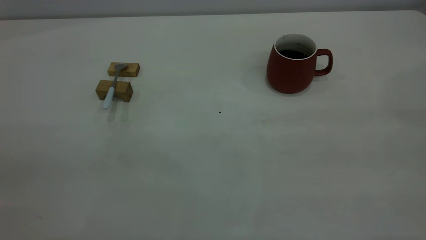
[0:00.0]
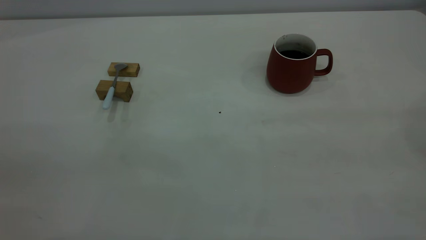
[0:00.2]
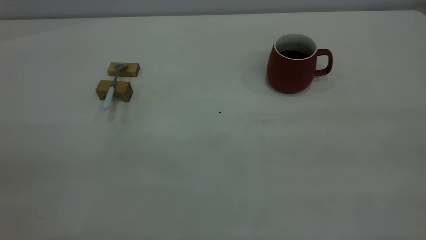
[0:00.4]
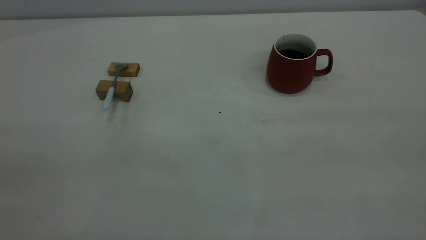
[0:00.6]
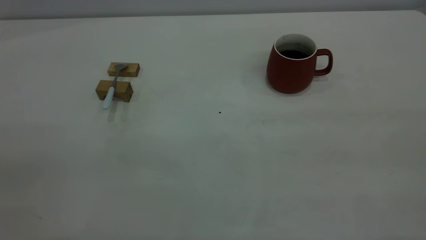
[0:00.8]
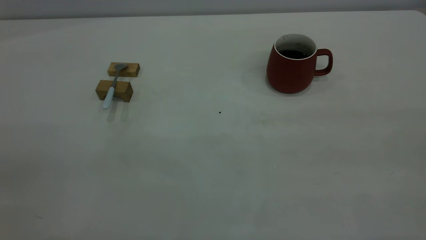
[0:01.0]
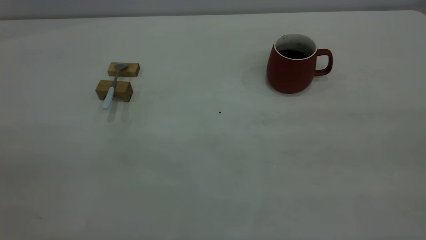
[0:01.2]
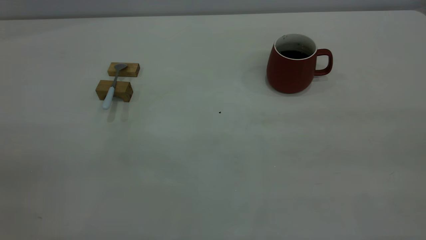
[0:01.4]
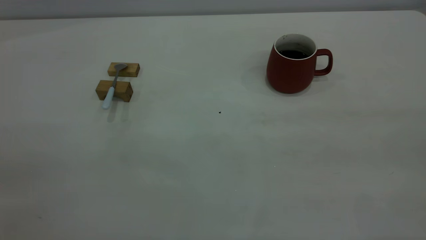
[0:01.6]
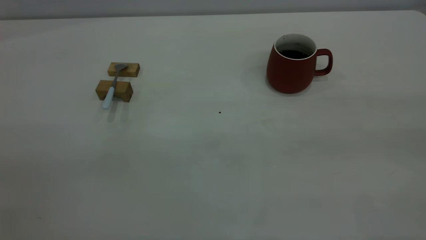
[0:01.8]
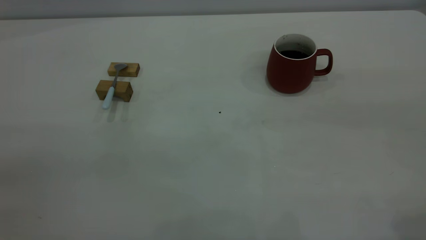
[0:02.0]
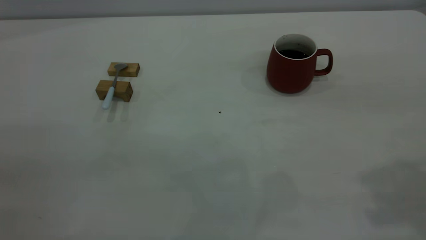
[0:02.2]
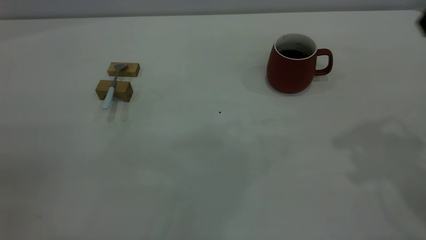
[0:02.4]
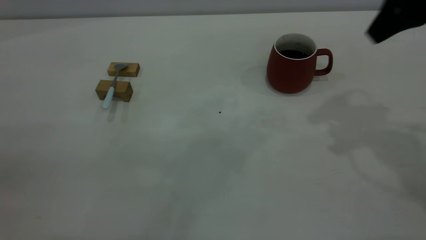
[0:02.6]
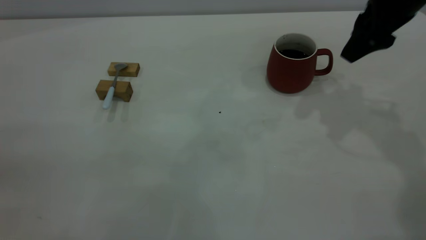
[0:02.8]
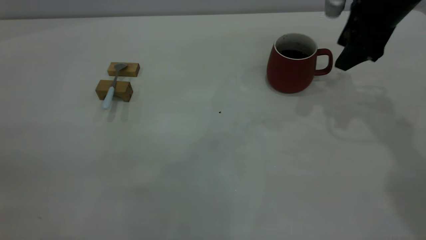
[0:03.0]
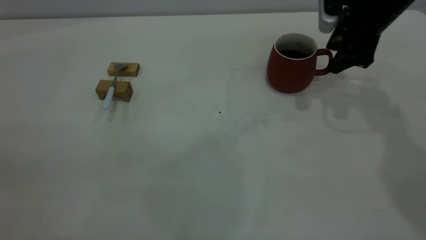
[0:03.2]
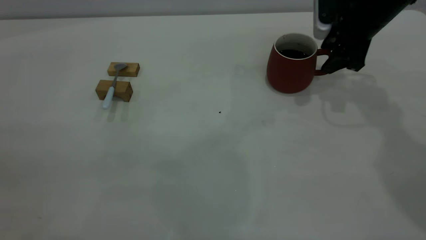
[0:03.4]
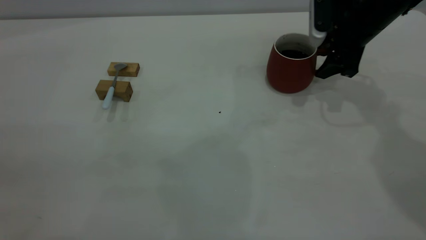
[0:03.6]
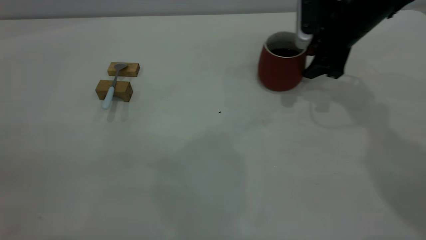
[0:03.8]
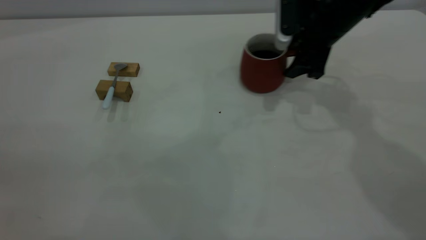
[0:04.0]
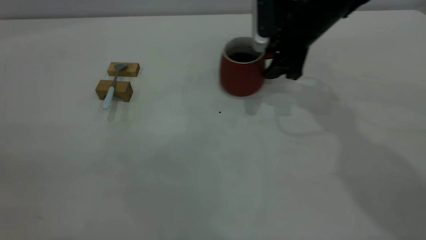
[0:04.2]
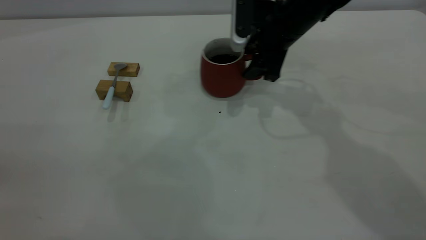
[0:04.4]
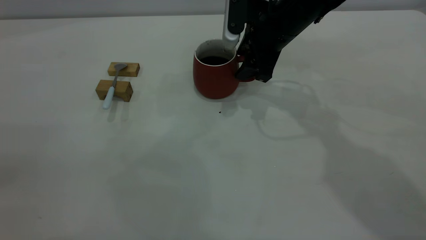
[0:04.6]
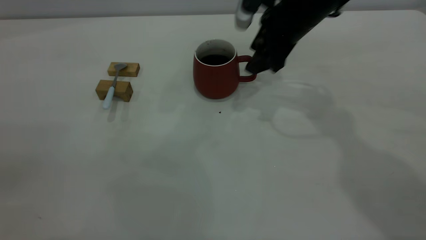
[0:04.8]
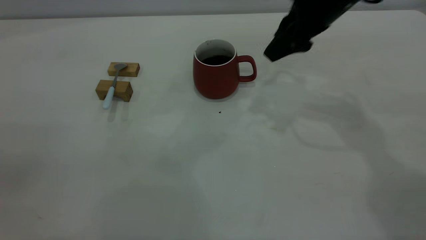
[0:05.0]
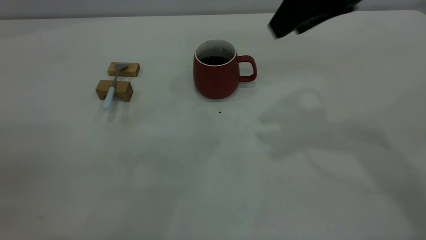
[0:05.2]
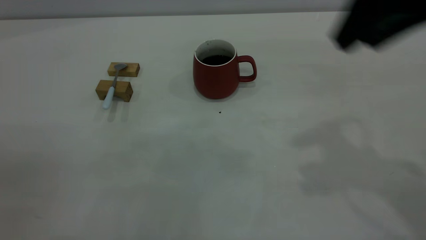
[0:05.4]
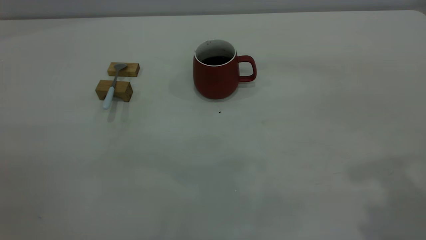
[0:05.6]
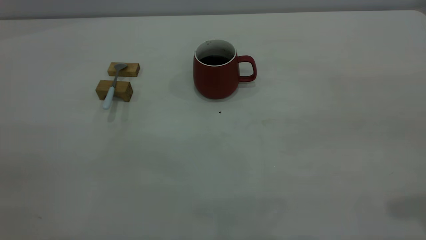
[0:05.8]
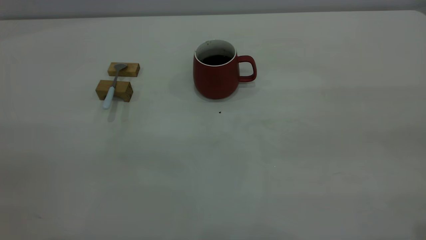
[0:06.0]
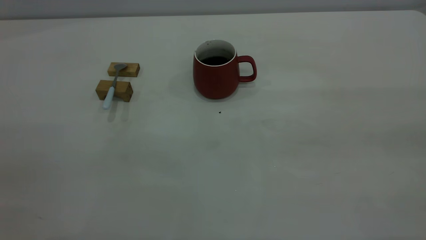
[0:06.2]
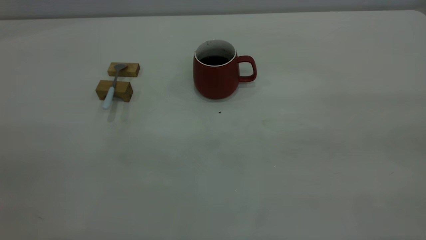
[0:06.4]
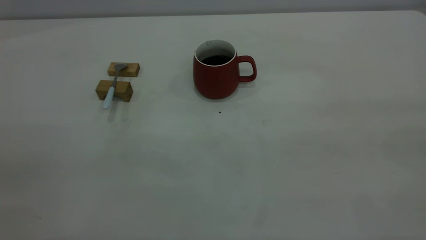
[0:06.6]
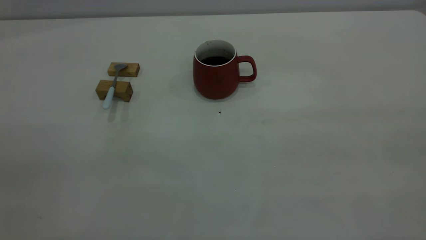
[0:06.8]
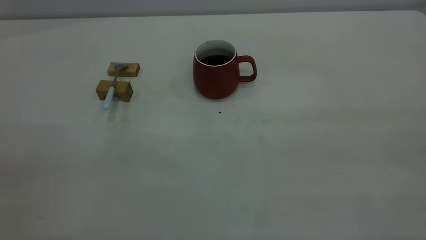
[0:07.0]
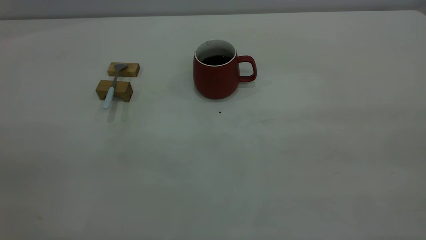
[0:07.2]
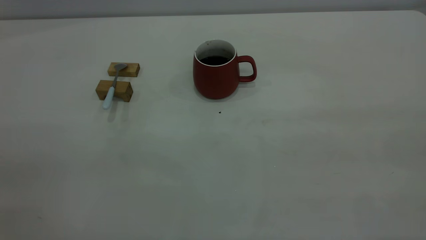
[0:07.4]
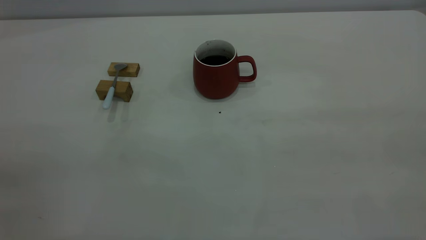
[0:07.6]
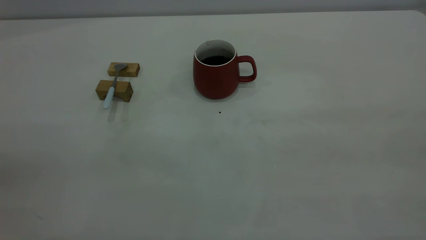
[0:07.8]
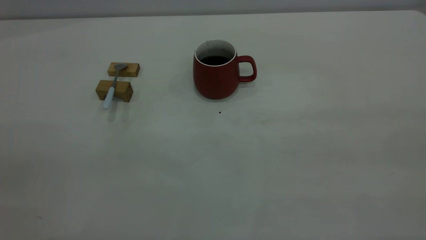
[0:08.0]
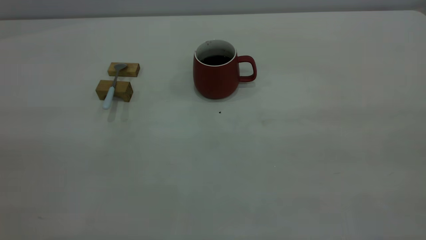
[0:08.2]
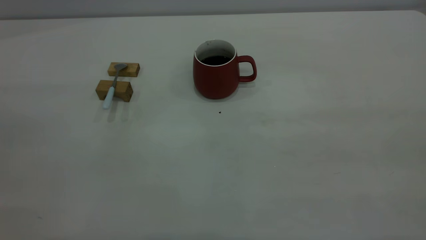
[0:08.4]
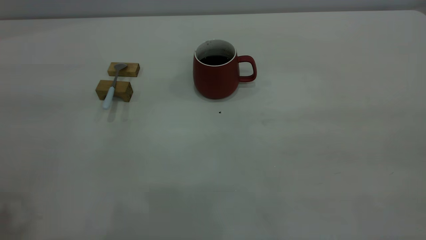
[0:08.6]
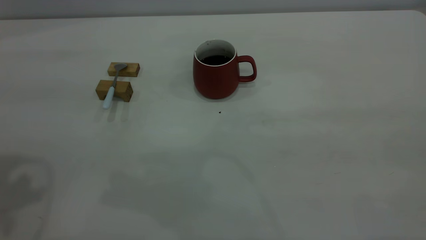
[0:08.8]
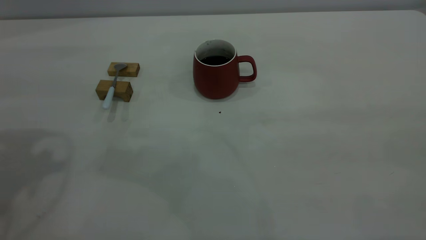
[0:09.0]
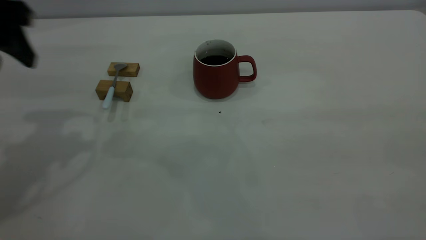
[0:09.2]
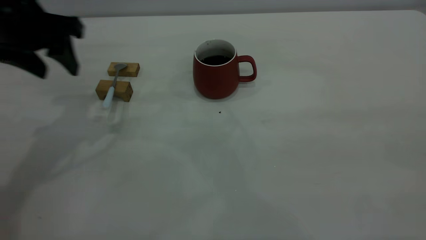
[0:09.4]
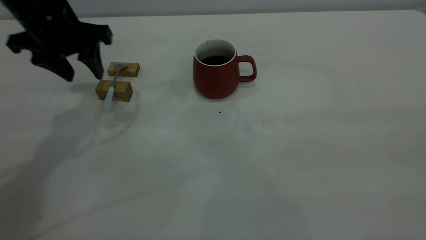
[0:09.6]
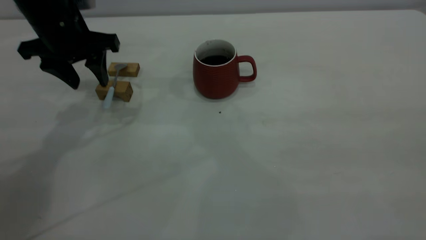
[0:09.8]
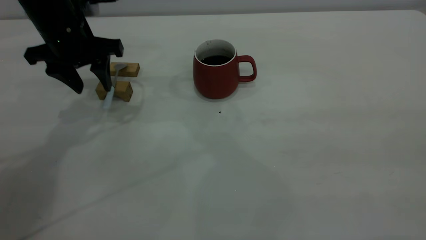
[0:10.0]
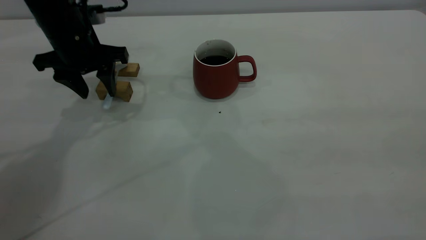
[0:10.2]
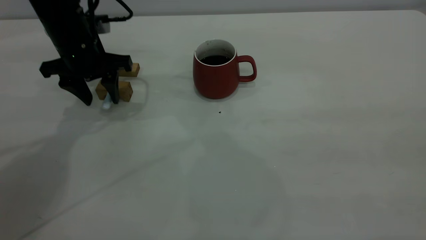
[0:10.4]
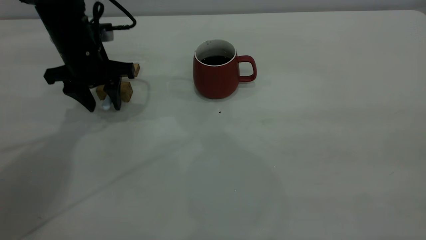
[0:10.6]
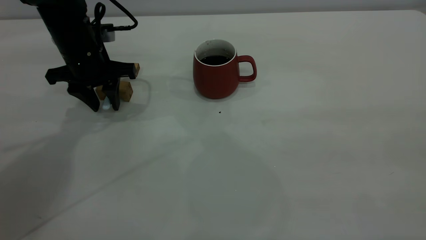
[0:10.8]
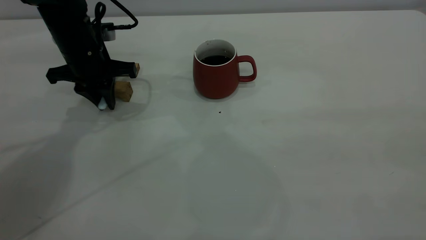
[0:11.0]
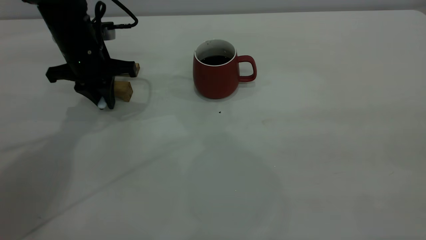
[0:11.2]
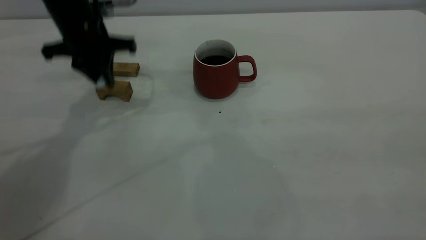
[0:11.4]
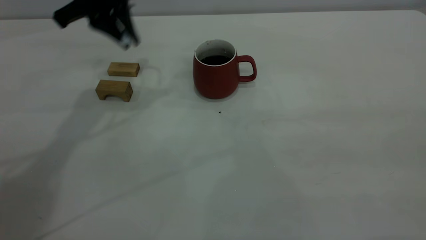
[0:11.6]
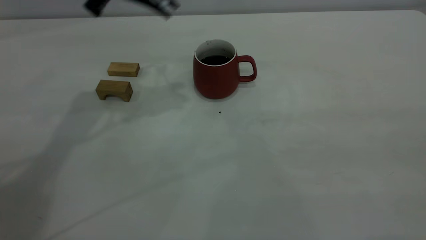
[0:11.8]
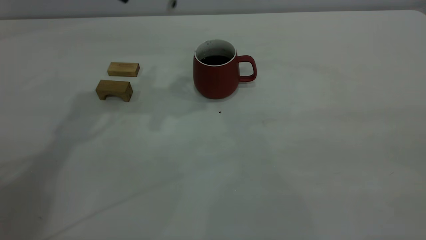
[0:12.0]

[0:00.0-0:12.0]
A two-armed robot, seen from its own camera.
Step, 0:00.0 to 0:05.0: Move the cup with coffee to the center of view.
Step, 0:05.2 to 0:11.4: Pick up the spoon.
0:00.0 to 0:01.6: Neither gripper changes place.
0:01.6 to 0:03.0: The right gripper heads forward and downward, covering approximately 40 cm.
0:03.0 to 0:04.4: The right gripper heads to the left, covering roughly 15 cm.
0:04.4 to 0:06.0: The right gripper heads backward, upward and to the right, covering some 50 cm.
0:09.0 to 0:10.4: The left gripper goes roughly 25 cm downward, forward and to the right.
0:10.4 to 0:12.0: The left gripper moves upward and to the right, approximately 20 cm, and closes its fingers.

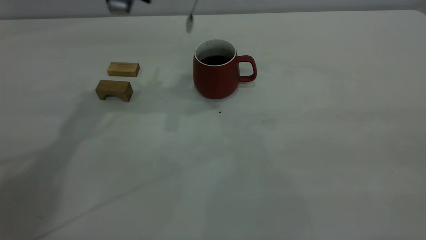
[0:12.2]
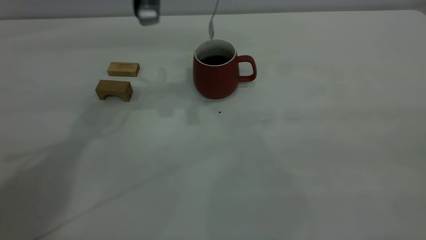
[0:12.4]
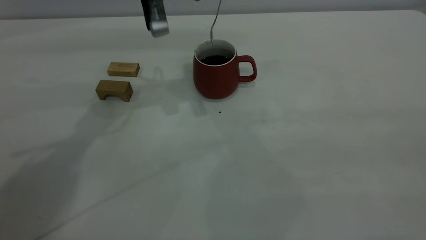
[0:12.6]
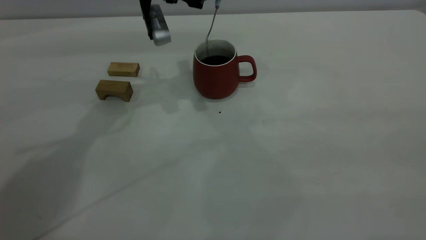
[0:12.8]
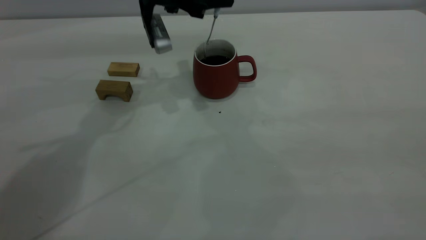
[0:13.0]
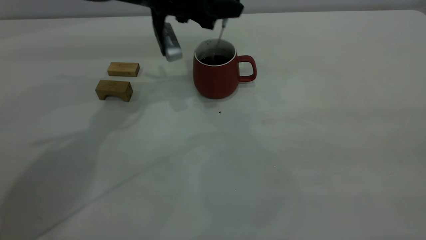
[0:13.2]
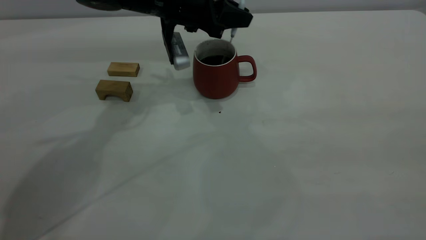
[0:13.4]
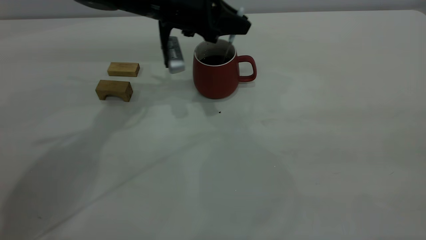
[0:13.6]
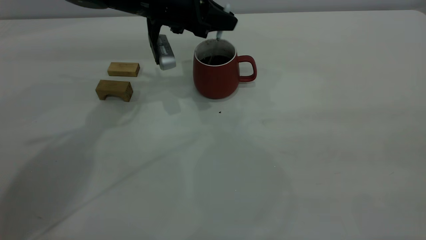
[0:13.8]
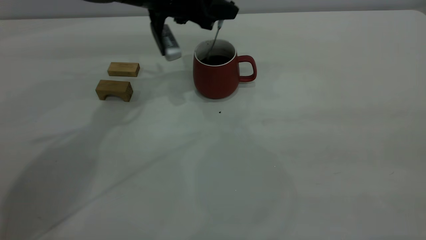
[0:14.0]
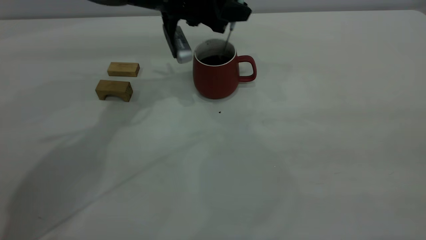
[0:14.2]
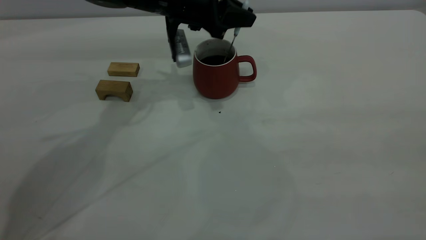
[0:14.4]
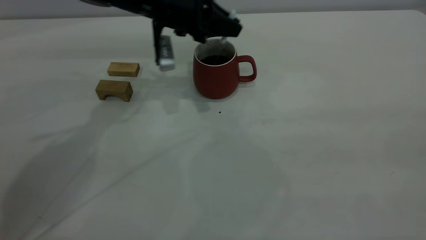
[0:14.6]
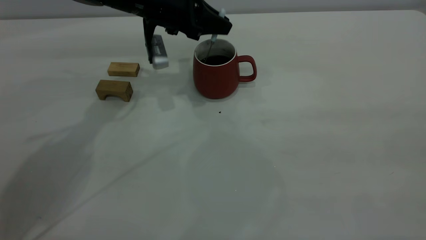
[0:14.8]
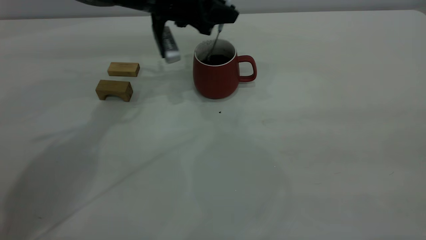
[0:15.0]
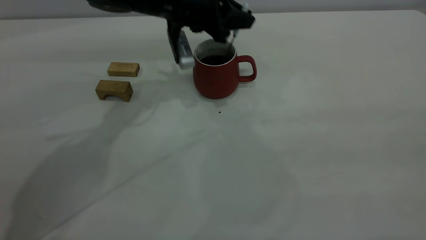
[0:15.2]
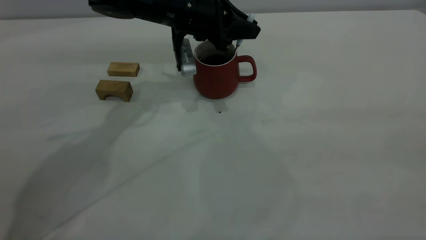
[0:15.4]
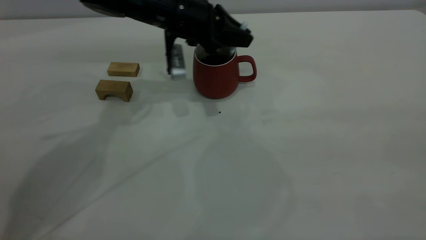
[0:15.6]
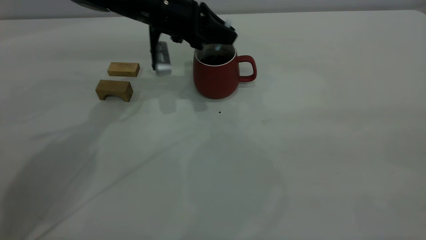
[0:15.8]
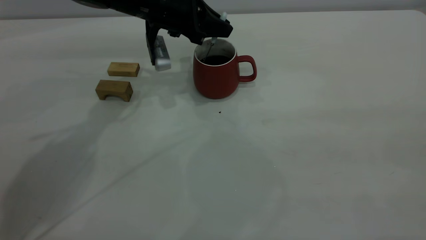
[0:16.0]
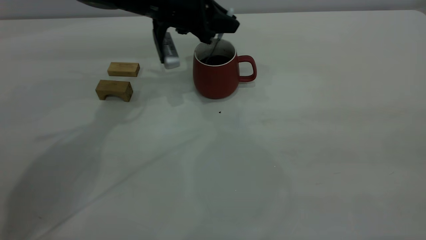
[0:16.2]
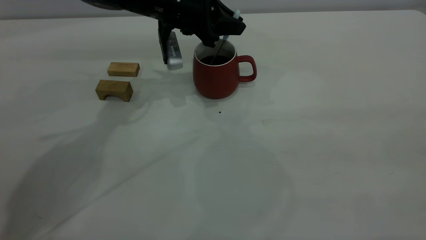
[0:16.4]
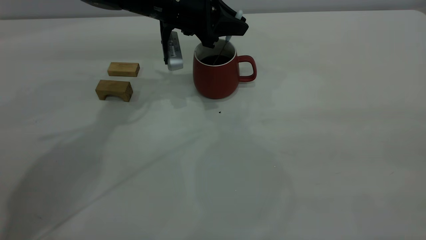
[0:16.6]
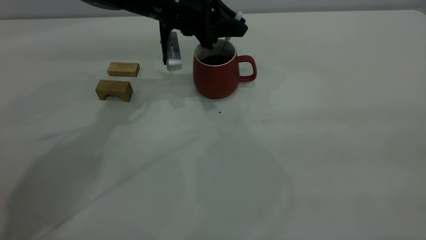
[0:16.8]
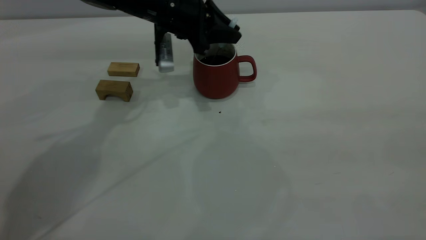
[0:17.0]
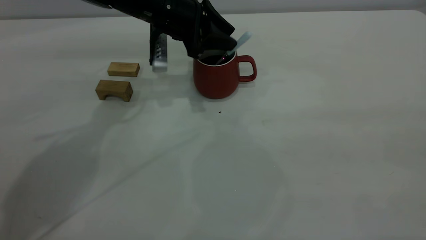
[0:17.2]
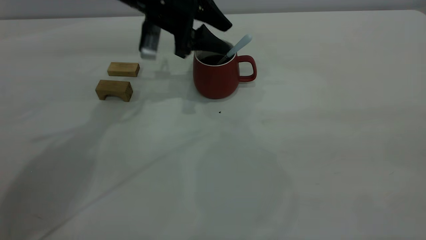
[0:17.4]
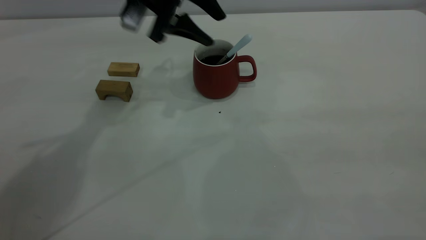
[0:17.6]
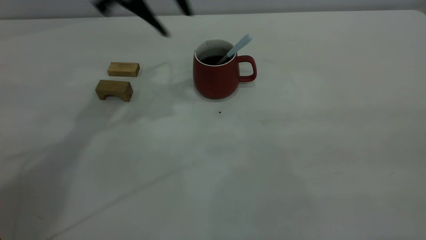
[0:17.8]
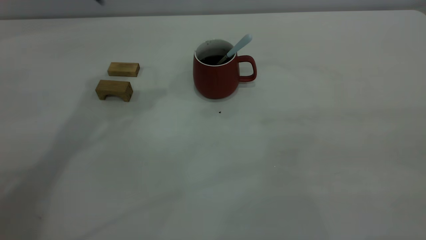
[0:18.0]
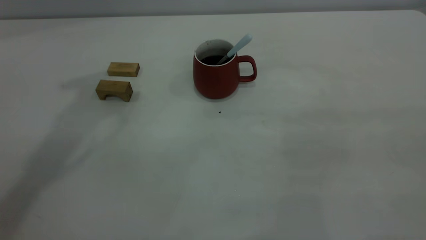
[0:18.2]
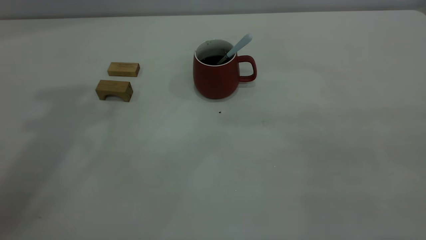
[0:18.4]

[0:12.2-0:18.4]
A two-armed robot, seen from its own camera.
Step, 0:12.2 to 0:17.6: Stir the coffee in the cup.
0:12.2 to 0:13.8: The left gripper moves downward, roughly 10 cm.
0:13.8 to 0:16.8: The grippers stay close to where they were, moving slightly.
0:16.8 to 0:18.4: The left gripper heads upward, covering some 40 cm, and opens up.
